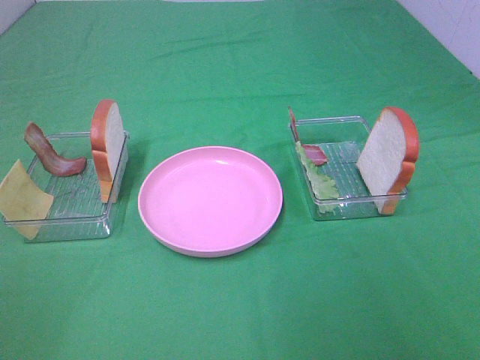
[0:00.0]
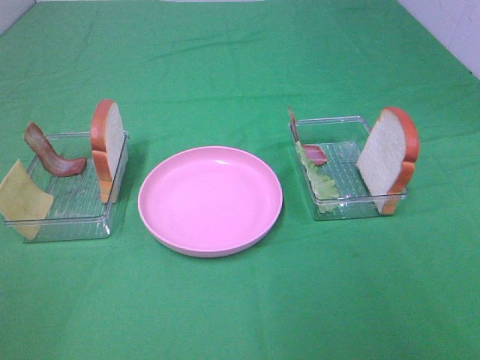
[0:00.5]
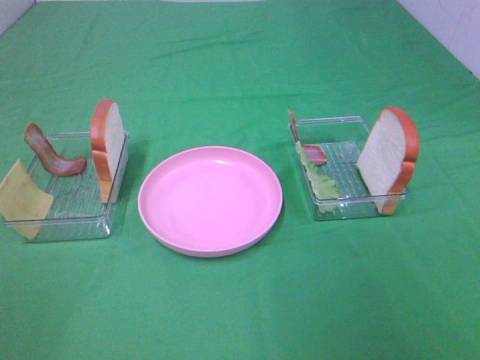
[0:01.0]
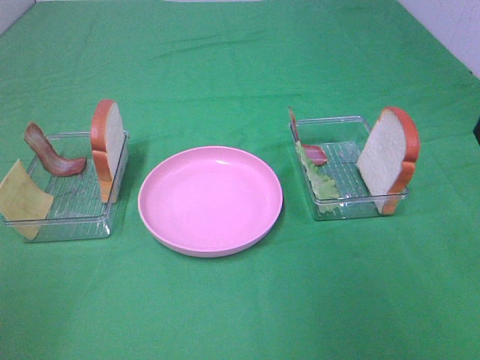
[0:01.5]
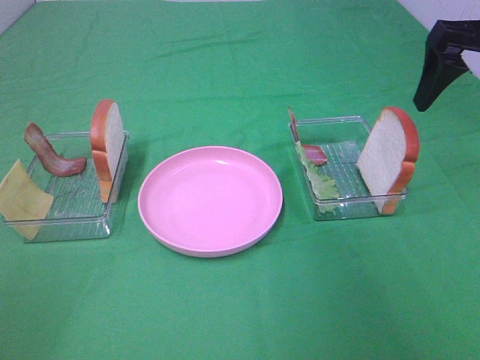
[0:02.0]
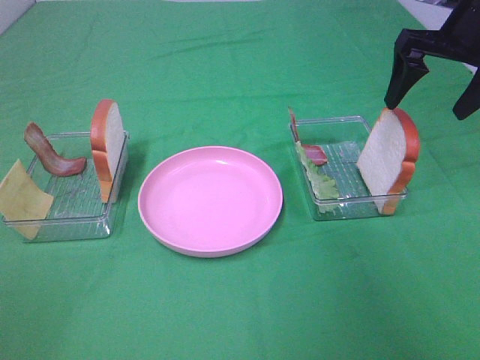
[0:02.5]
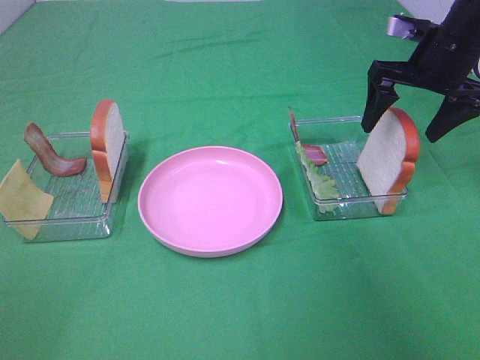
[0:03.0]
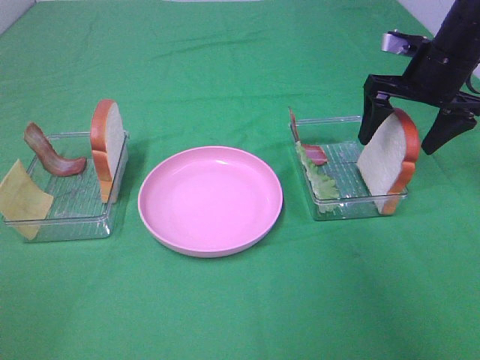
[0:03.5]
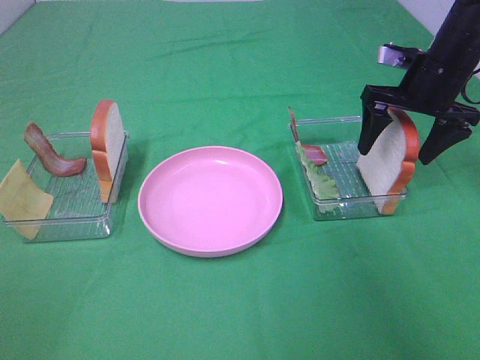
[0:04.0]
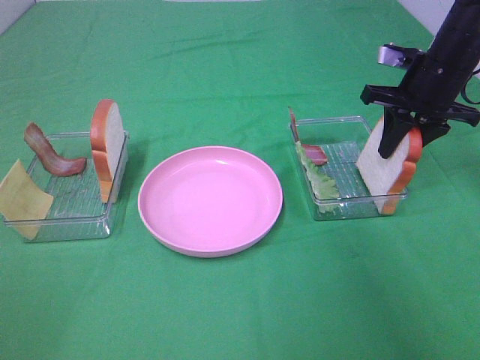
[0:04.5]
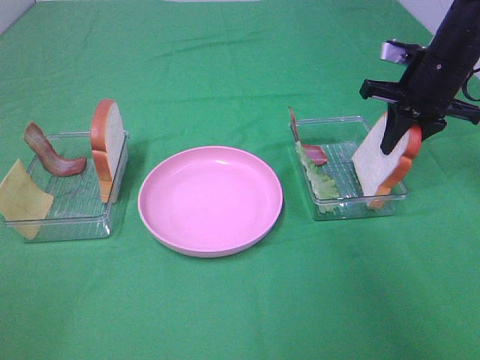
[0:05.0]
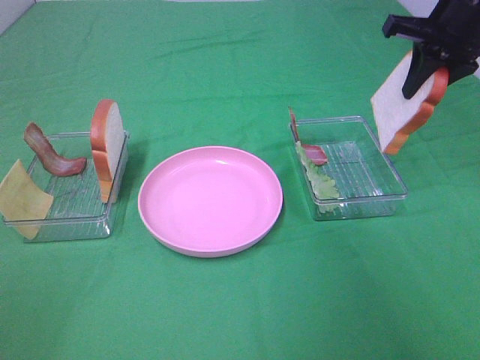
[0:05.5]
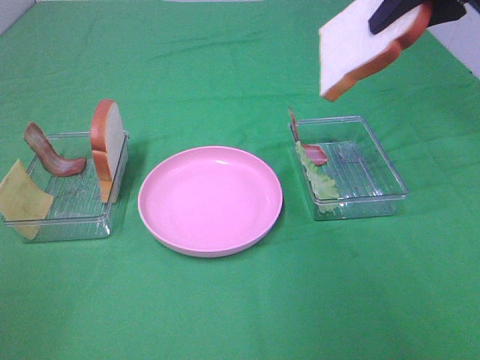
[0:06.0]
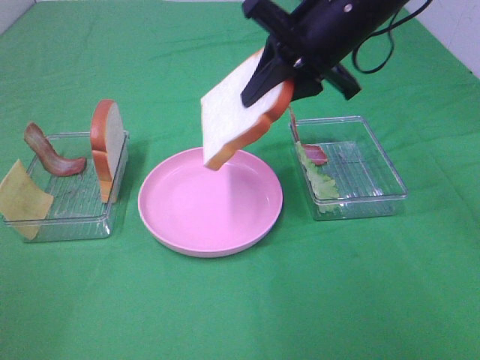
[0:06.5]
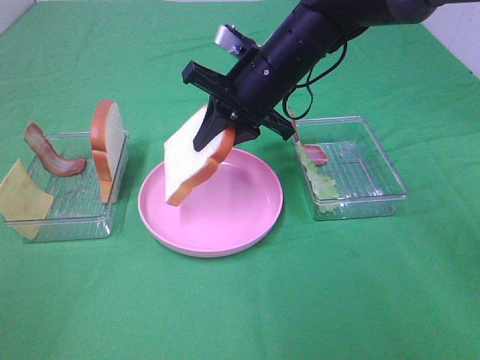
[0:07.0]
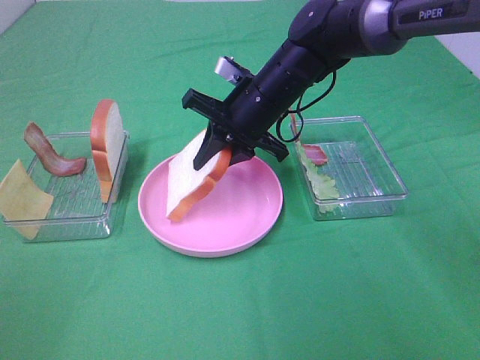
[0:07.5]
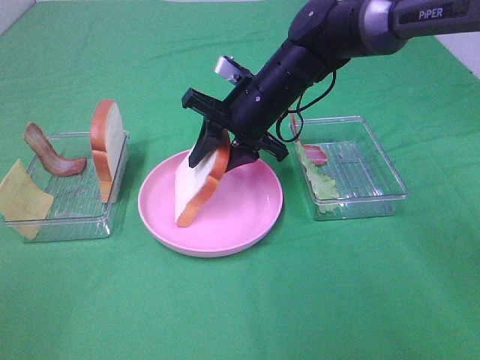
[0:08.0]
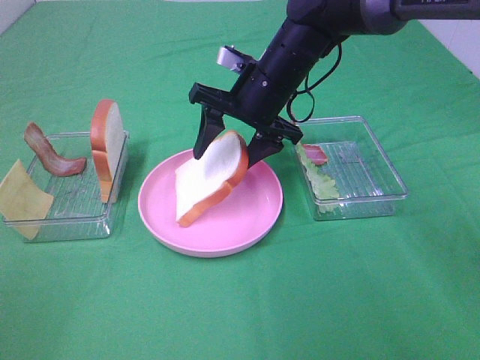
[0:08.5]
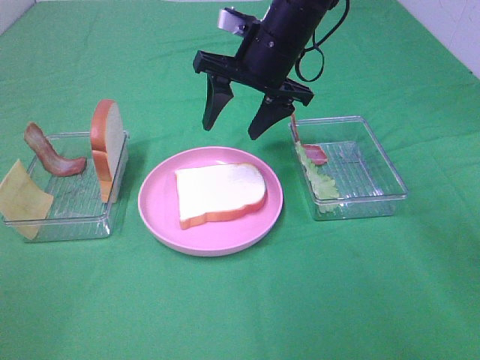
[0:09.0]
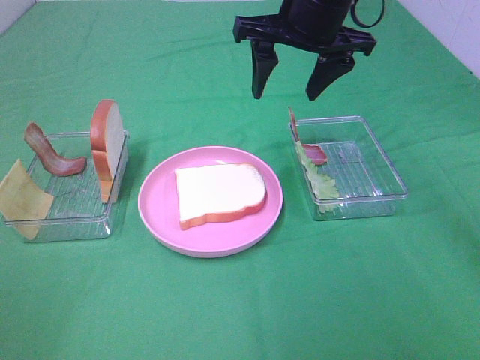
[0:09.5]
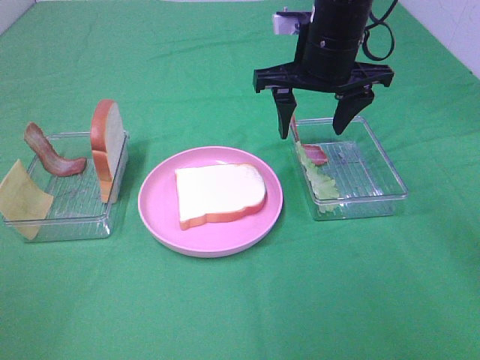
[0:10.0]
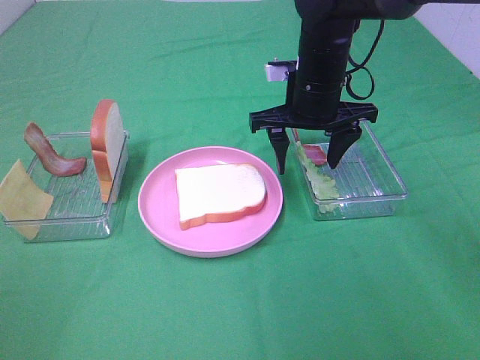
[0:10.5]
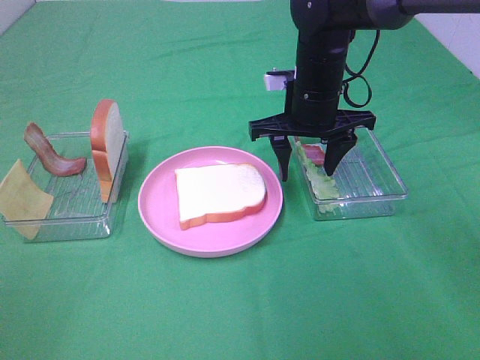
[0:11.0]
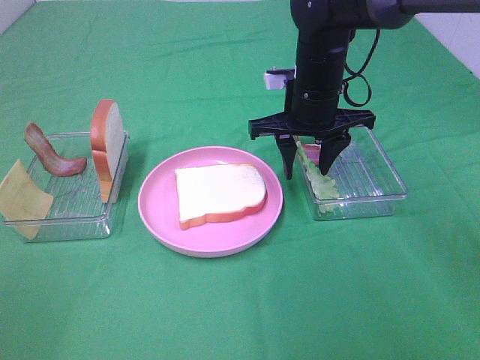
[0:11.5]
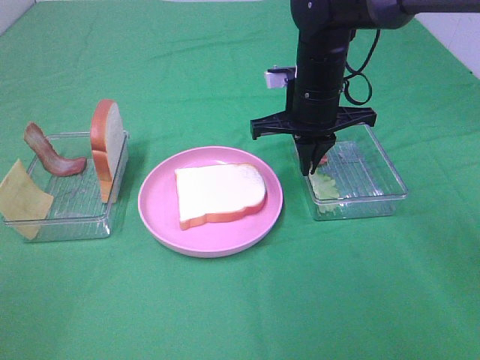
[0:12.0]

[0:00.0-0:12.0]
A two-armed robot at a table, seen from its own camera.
Task of the whole recording: Make sandwiches.
Step, 0:00.0 to 0:04.5: Right hand:grab the bread slice.
Step, 0:05.0 to 0:08.5: Right hand:place the bread slice on the plate.
0:00.0 to 0:02.0: The right gripper heads forward, covering roughly 35 cm.
0:02.0 to 0:04.0: The right gripper is displaced downward and forward by approximately 15 cm.
0:04.0 to 0:06.0: The right gripper travels upward by roughly 15 cm, and closes up.
0:06.0 to 0:08.0: The right gripper shifts some 25 cm downward and to the left.
0:08.0 to 0:10.0: The right gripper travels upward and to the right by about 10 cm.
0:10.0 to 0:12.0: The right gripper shifts roughly 5 cm downward, and closes its fingers.

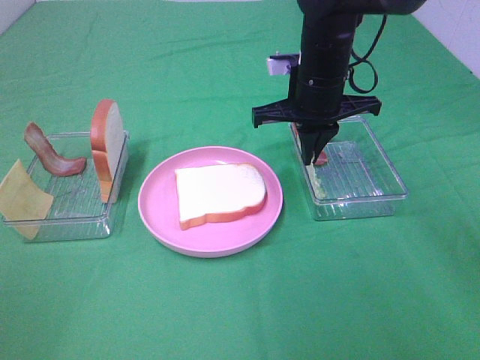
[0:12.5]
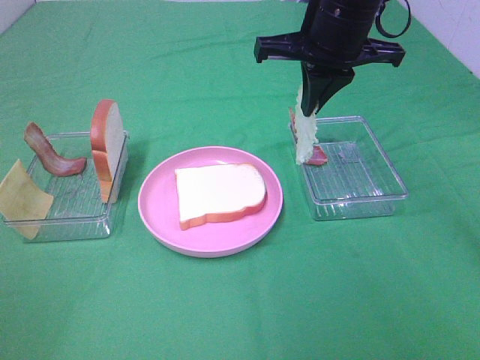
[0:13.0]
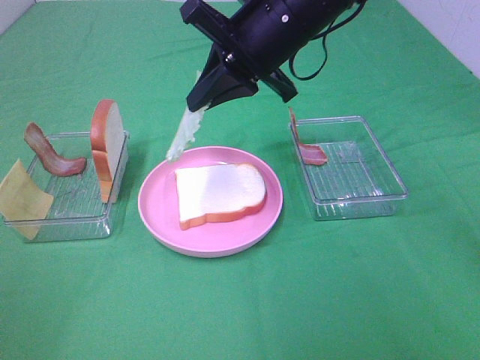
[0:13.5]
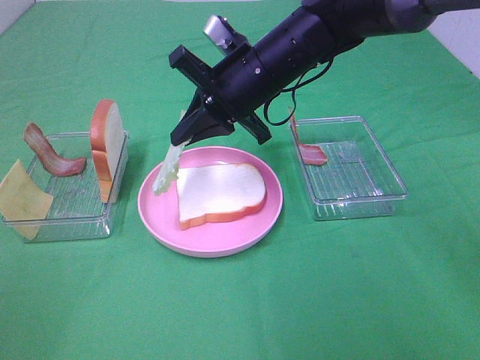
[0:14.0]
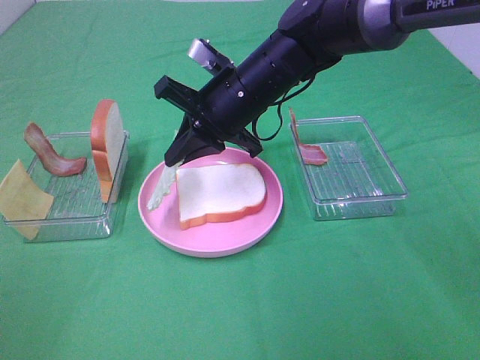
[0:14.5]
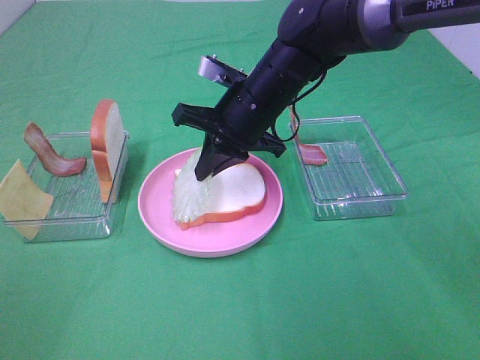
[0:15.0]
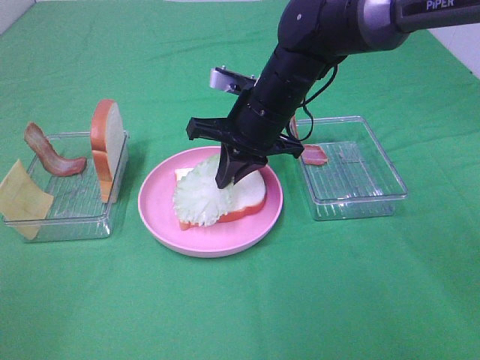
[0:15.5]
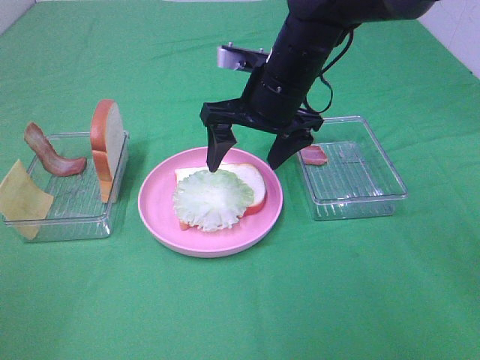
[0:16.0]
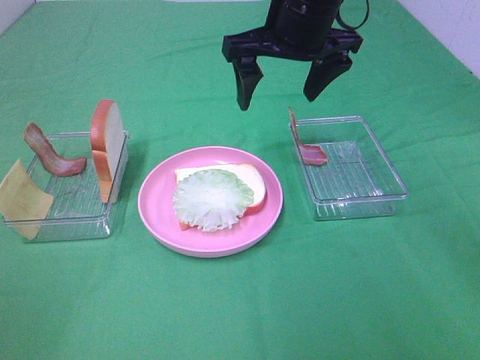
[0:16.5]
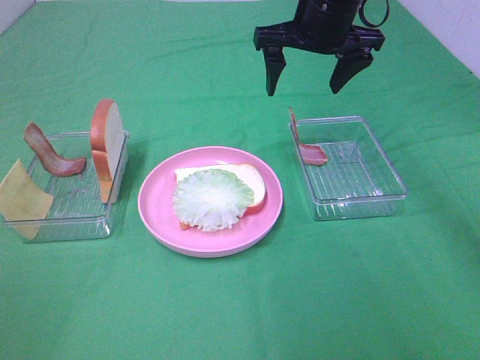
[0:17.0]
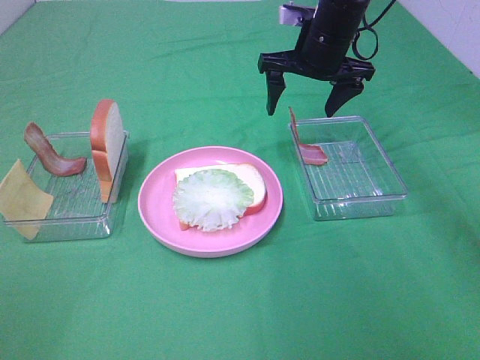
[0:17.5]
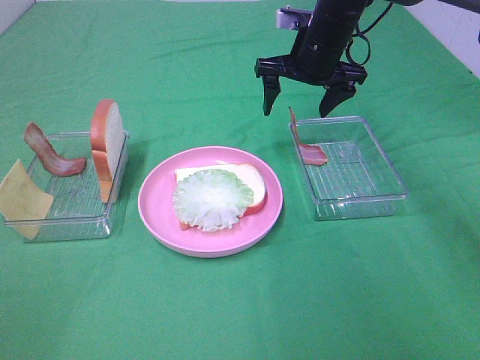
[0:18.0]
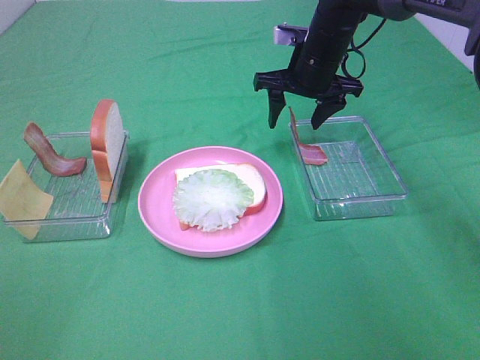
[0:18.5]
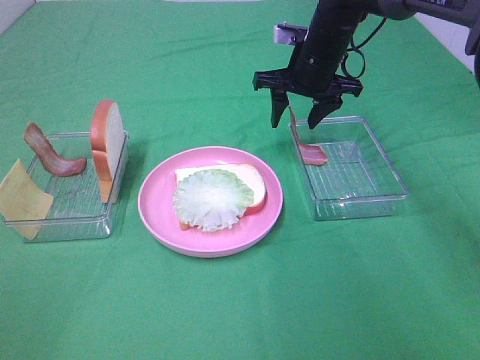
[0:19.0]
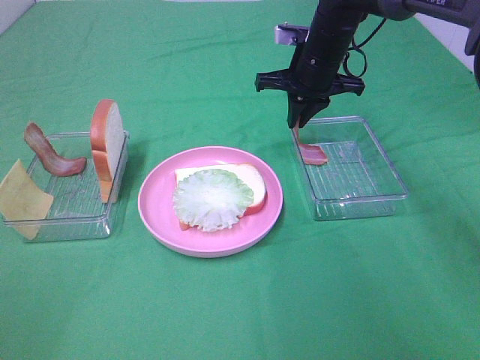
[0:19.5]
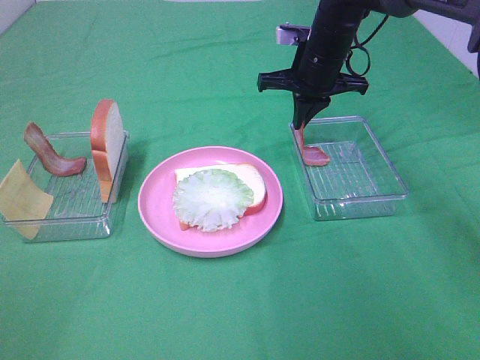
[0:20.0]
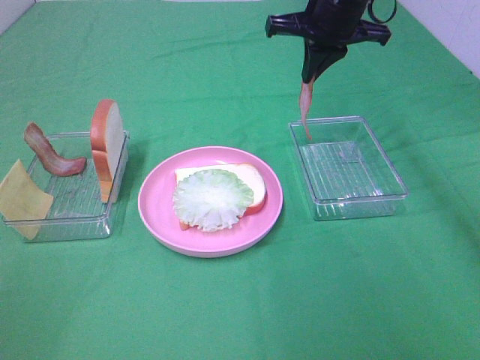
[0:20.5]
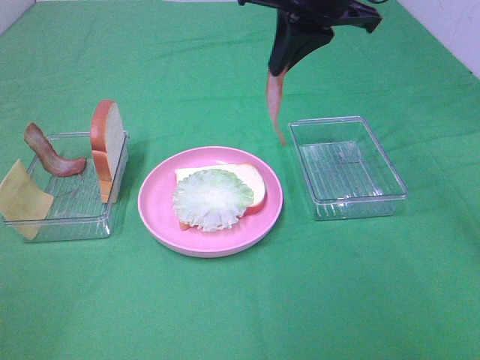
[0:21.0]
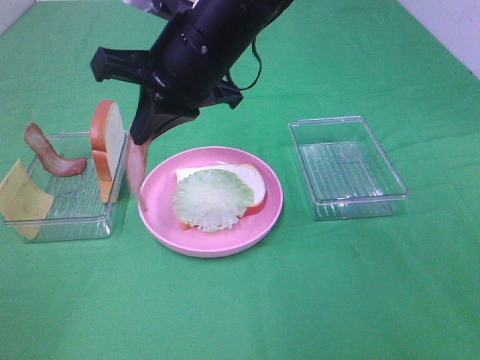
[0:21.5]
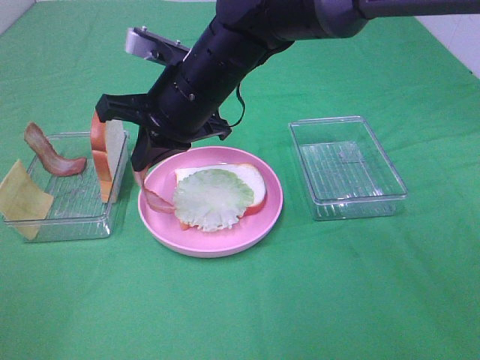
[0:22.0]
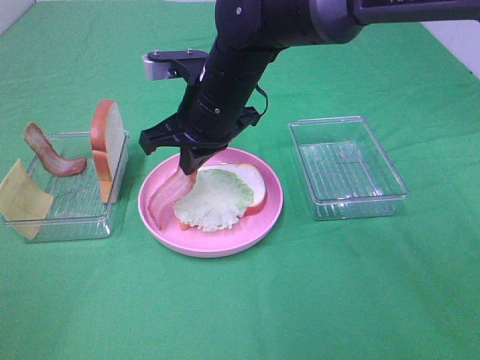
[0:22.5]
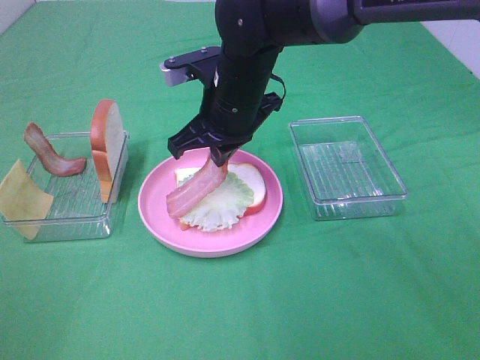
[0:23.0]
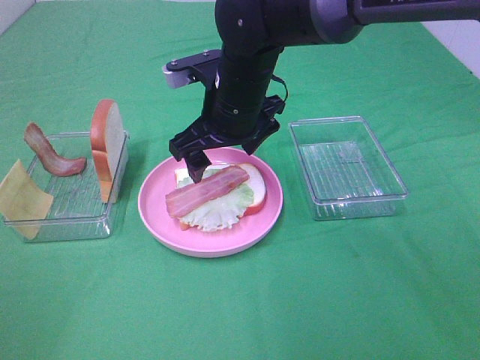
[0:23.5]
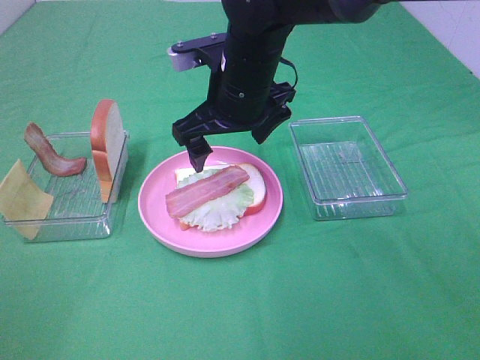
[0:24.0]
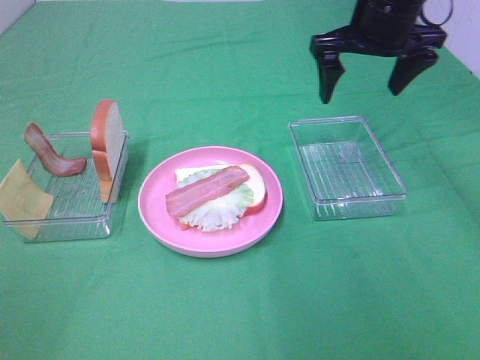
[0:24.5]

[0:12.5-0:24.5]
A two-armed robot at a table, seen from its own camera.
Task of the whole recording: Make sandwiches.
Step, 0:12.5 to 0:16.0: Right hand:place the lettuce slice on the bread slice.
Step, 0:16.5 to 0:20.0: Right hand:grab the bacon.
Step, 0:20.5 to 0:23.5: Right hand:place bacon on lettuce slice.
0:12.5 to 0:14.5: The right gripper moves to the left, about 10 cm, and goes upward and returns, about 10 cm each way.
0:14.5 to 0:16.5: The right gripper moves upward and to the right, about 10 cm, and opens up.
0:16.5 to 0:18.5: The right gripper shifts approximately 15 cm downward and forward.
0:18.5 to 0:20.5: The right gripper shifts some 10 cm upward, and closes.
0:20.5 to 0:22.5: The right gripper is displaced to the left, backward and downward by about 20 cm.
0:22.5 to 0:24.5: The right gripper goes about 20 cm to the right and upward, and opens its fingers.

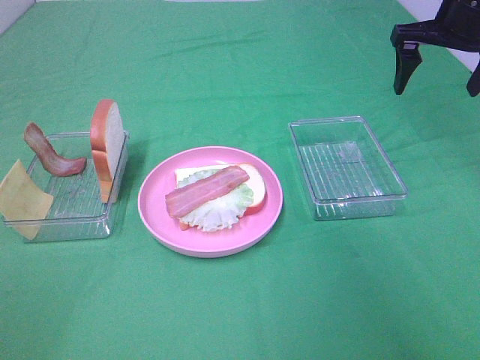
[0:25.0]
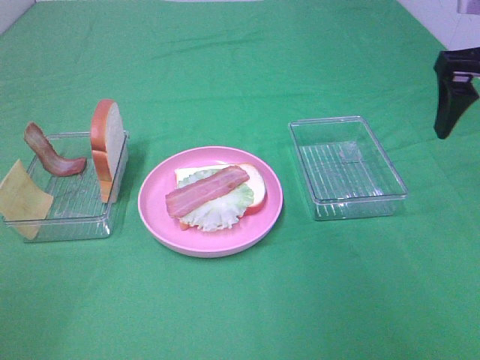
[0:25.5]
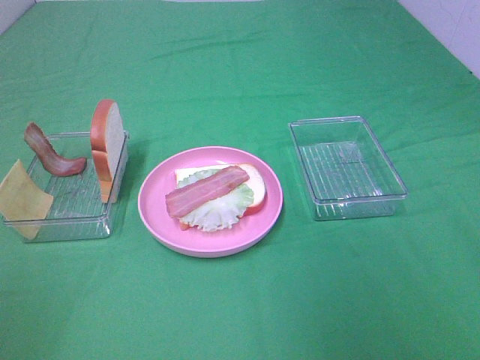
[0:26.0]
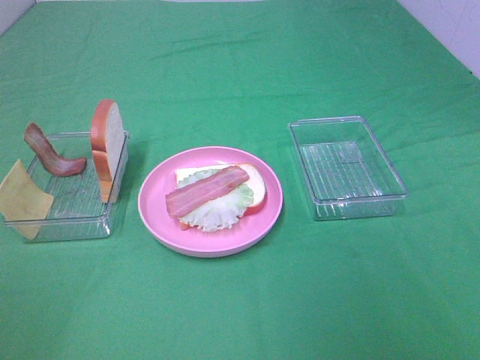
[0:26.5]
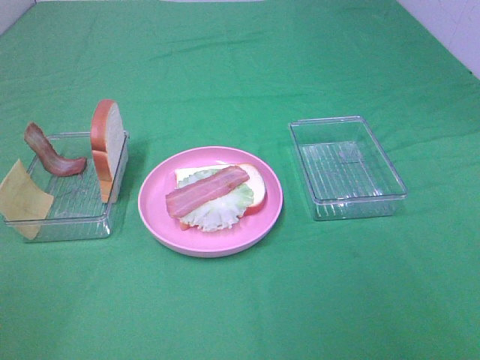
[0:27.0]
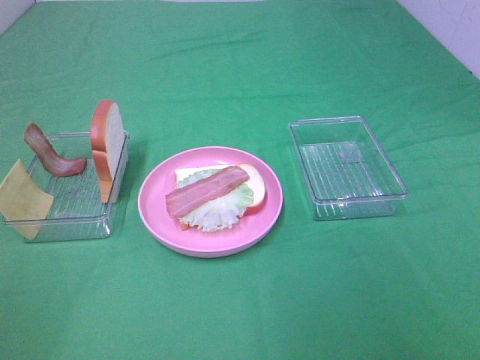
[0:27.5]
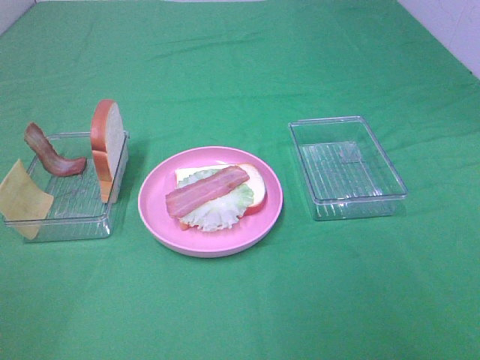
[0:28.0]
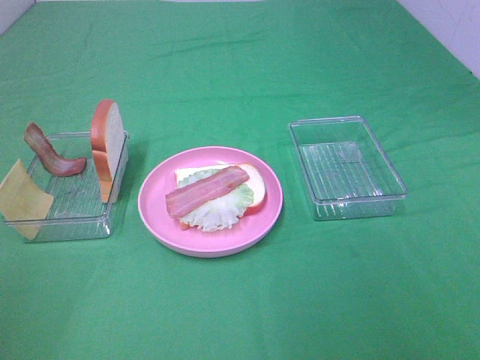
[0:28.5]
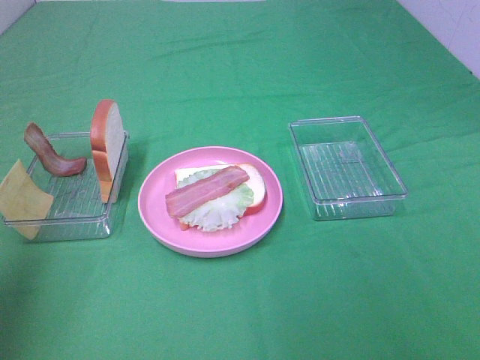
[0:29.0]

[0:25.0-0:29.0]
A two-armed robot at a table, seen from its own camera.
Task of the whole recording: Make sandwiches.
0:25.0 to 0:27.0: The right gripper travels backward by roughly 50 cm.
0:27.0 to 0:29.0: The left gripper is displaced forward by roughly 20 cm.
